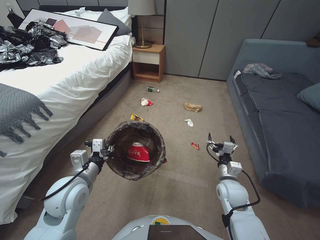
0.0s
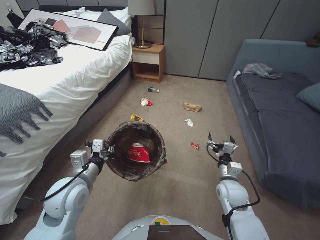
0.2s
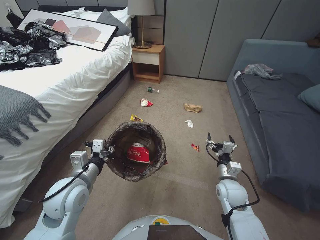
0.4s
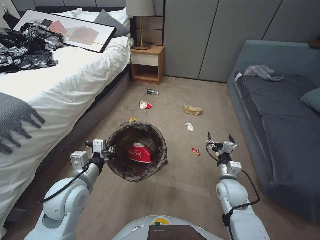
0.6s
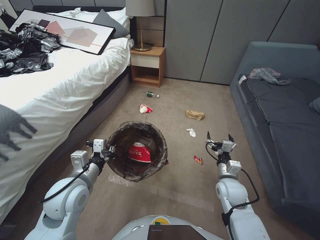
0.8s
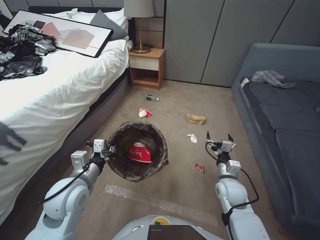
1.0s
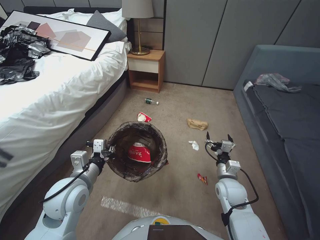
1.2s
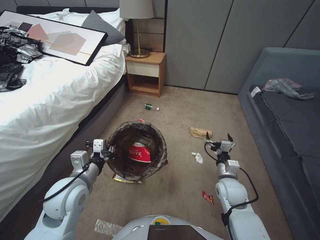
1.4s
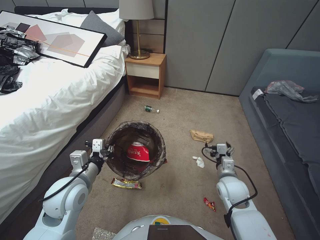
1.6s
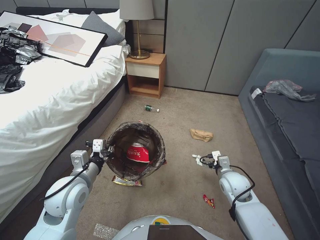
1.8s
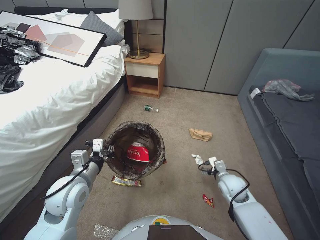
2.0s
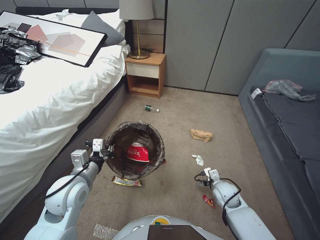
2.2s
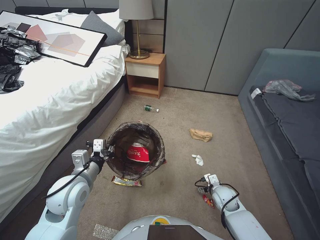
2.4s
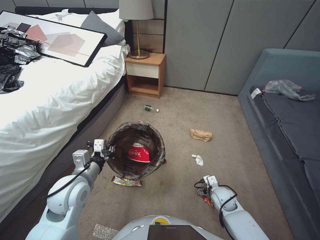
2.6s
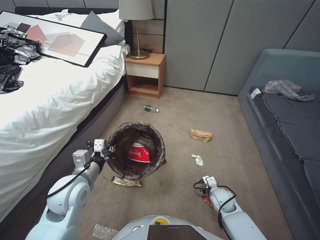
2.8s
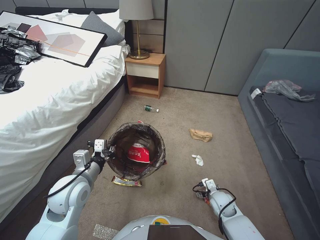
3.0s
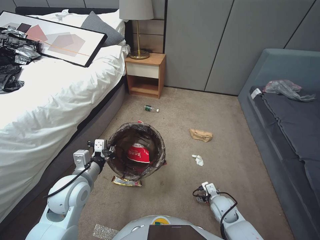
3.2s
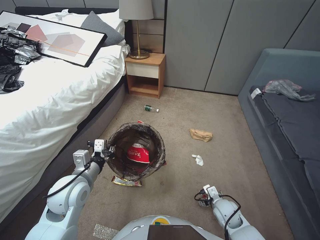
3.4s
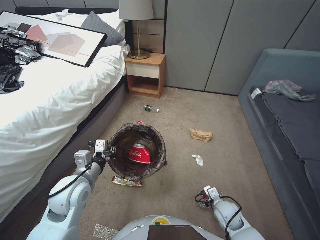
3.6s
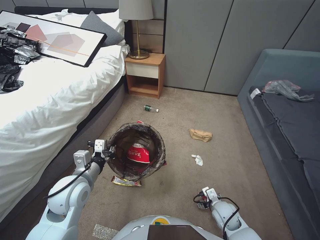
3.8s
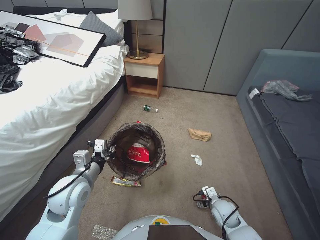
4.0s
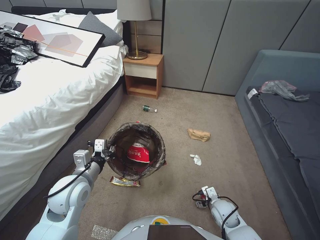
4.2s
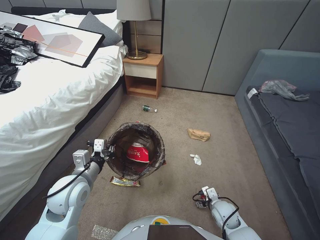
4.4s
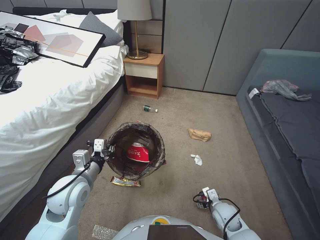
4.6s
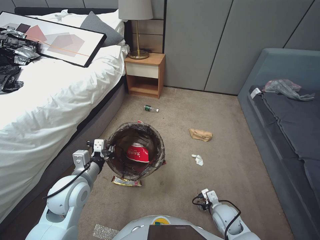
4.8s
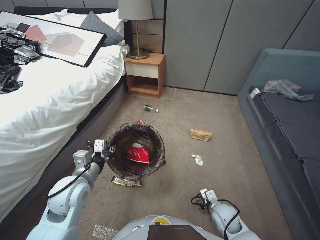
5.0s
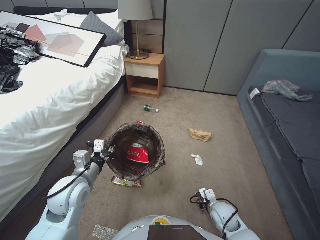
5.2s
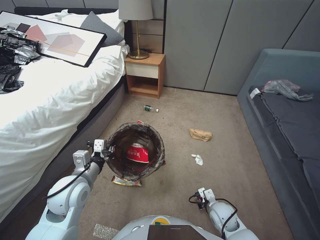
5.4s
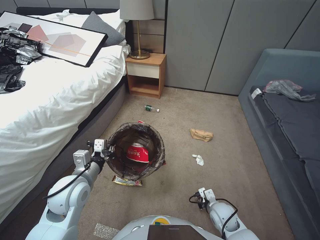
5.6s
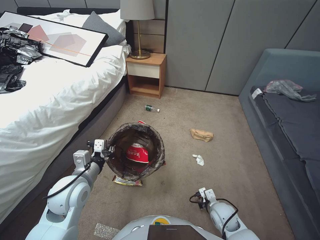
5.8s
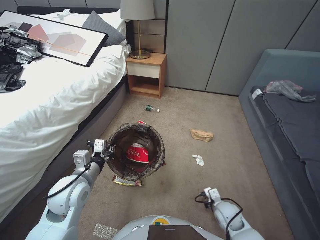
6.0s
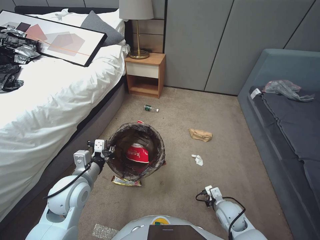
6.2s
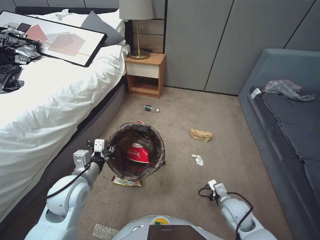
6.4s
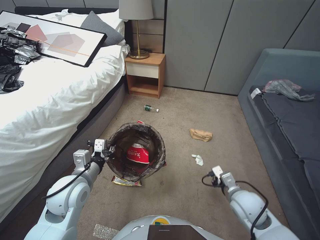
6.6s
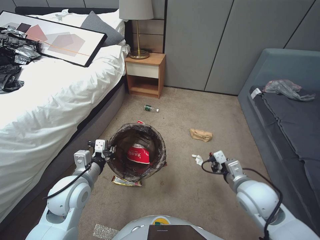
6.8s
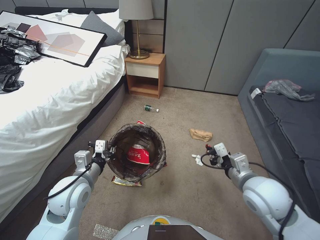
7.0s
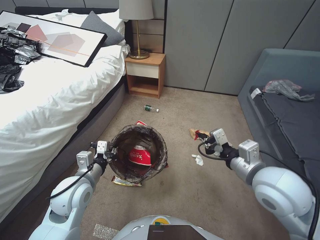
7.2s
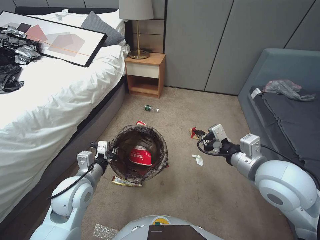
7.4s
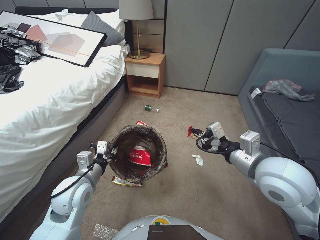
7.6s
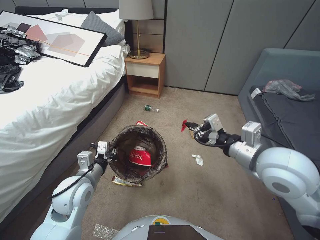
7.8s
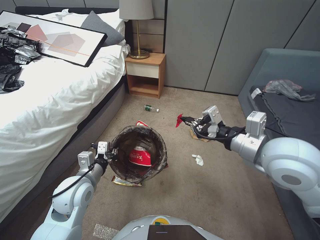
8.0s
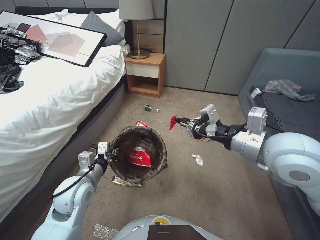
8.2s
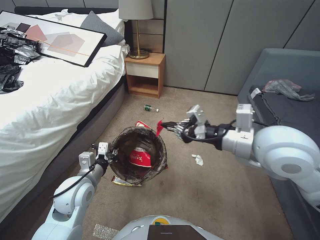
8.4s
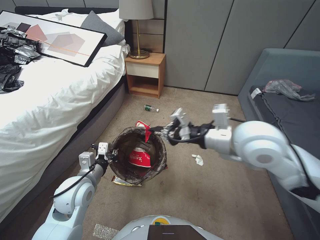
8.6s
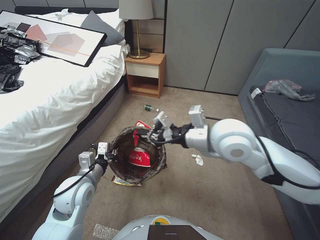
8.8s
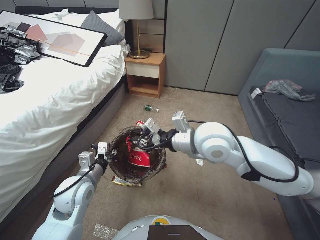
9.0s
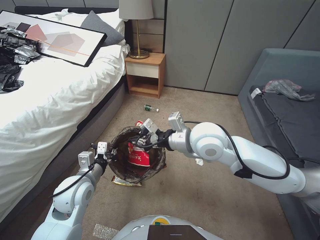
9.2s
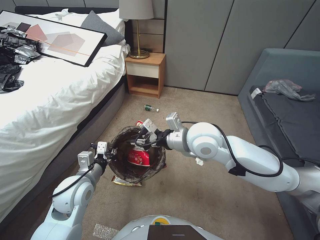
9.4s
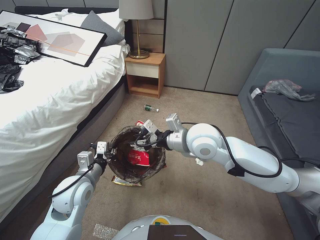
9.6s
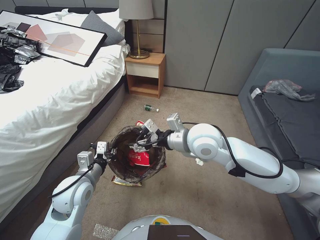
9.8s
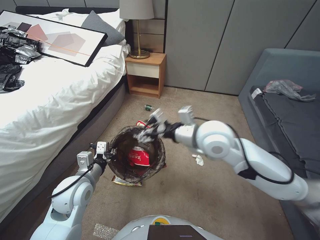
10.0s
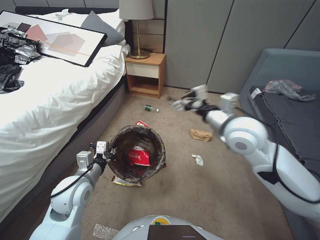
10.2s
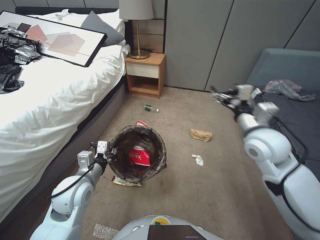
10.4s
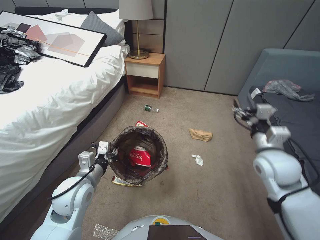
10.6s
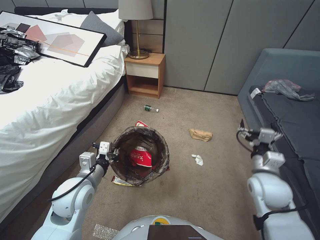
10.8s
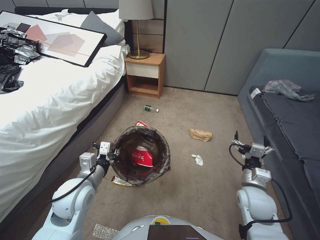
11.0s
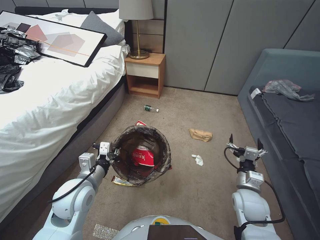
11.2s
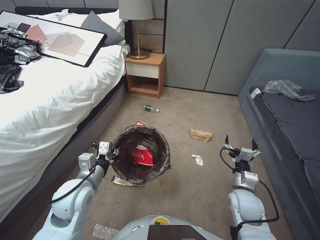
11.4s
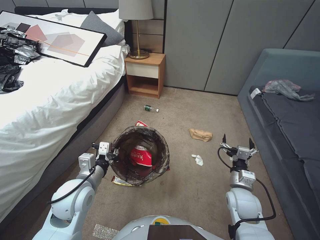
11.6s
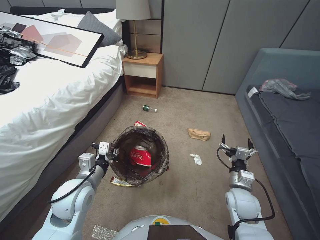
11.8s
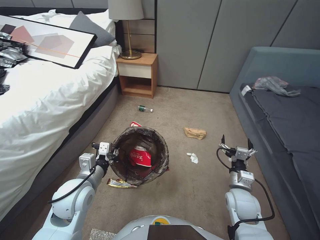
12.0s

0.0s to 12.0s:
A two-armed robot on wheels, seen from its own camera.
Task of the whole recording: Pick up the trash bin, then pick up the garbage from the floor and place it into the trash bin.
1.6s to 3.0s: The right gripper is displaced downward by about 15 cm.
3.0s to 4.4s: The grippers make only small movements.
4.4s to 6.0s: The right gripper closes its fingers.
6.0s to 7.6s: The right gripper goes approximately 30 cm upward.
7.6s to 9.0s: The right gripper goes roughly 20 cm to the left, upward and forward.
9.0s to 10.4s: The right gripper shifts approximately 10 cm to the right, and opens its fingers.
10.4s to 12.0s: The right gripper travels downward and backward by some 25 cm.

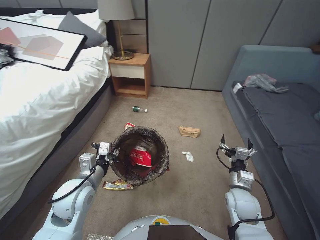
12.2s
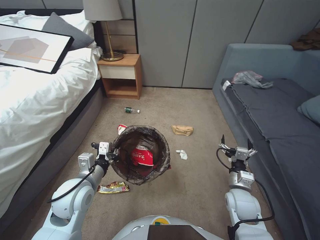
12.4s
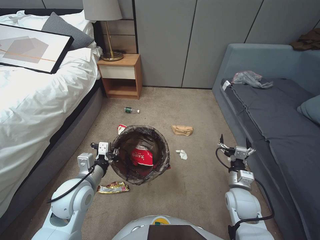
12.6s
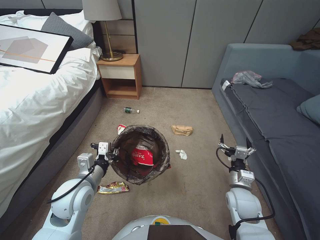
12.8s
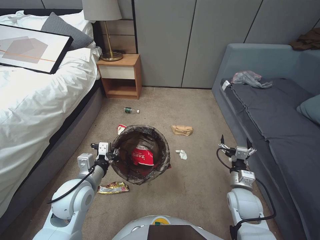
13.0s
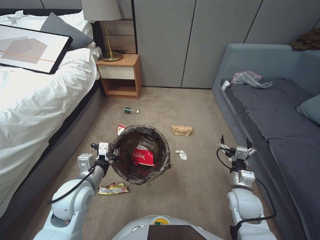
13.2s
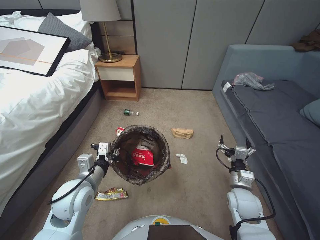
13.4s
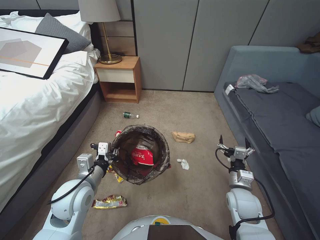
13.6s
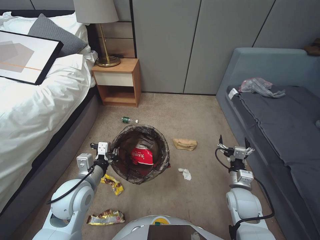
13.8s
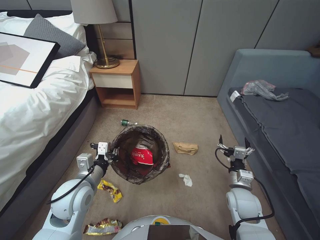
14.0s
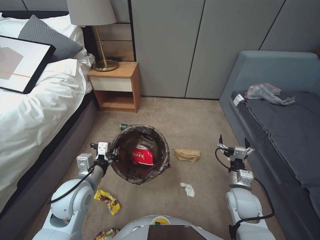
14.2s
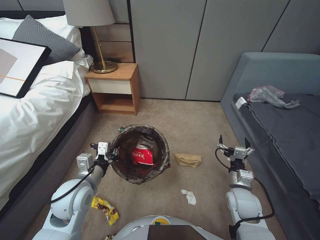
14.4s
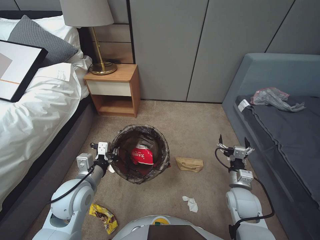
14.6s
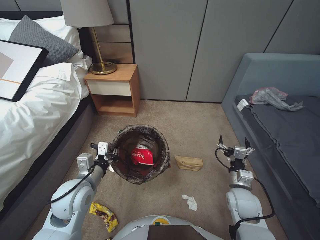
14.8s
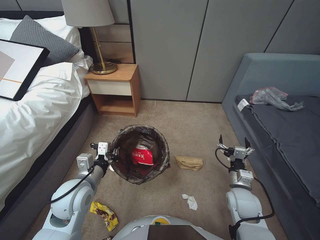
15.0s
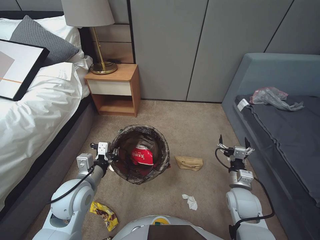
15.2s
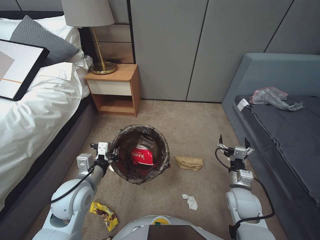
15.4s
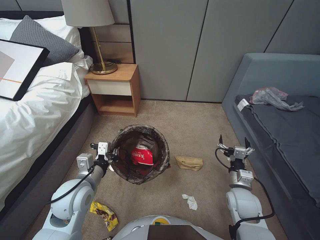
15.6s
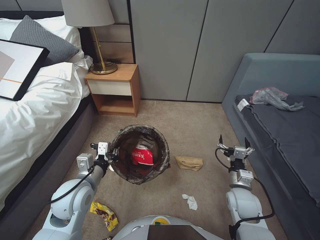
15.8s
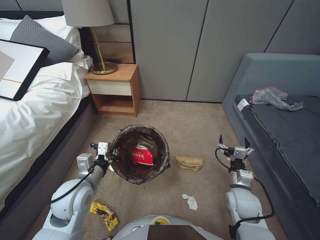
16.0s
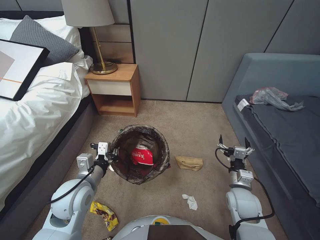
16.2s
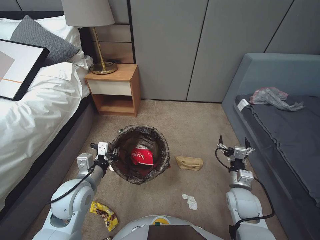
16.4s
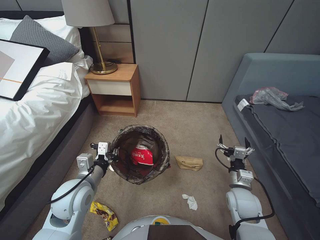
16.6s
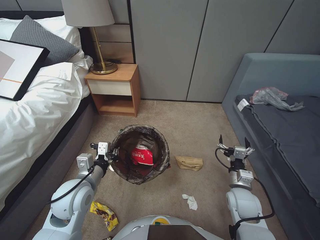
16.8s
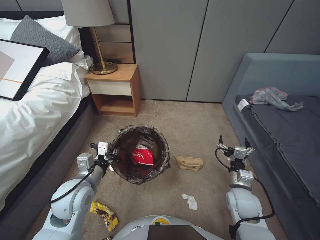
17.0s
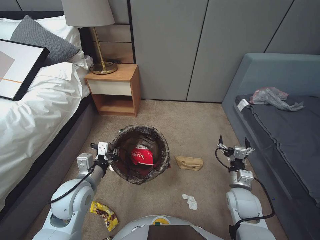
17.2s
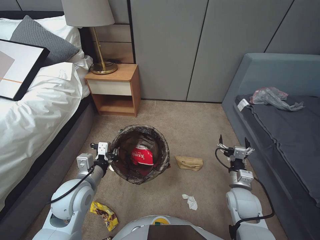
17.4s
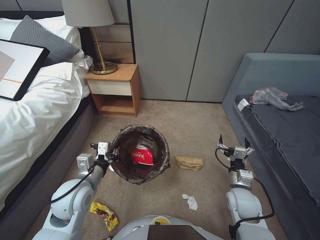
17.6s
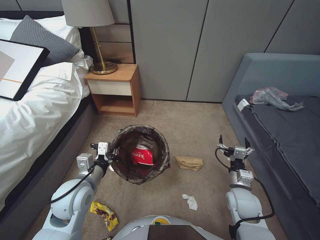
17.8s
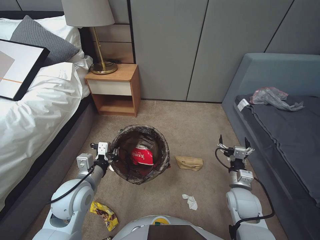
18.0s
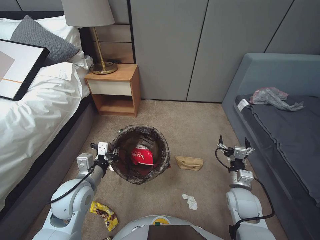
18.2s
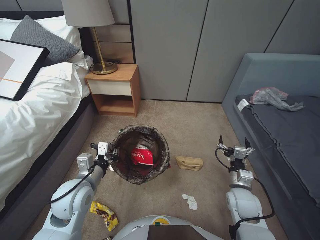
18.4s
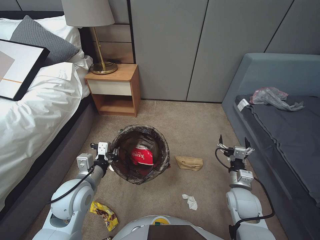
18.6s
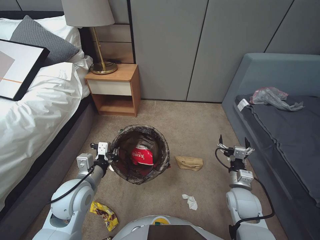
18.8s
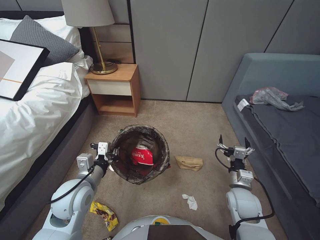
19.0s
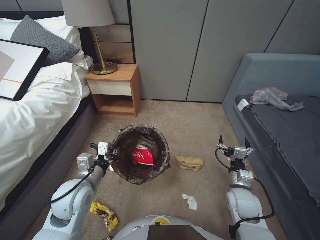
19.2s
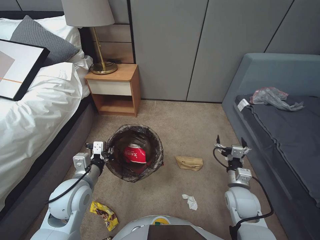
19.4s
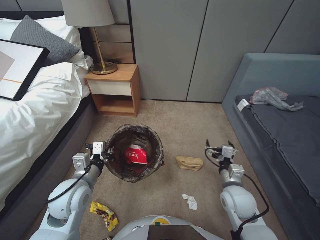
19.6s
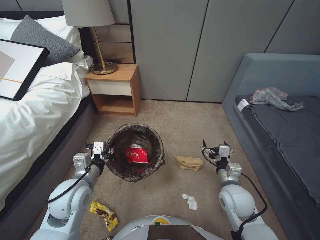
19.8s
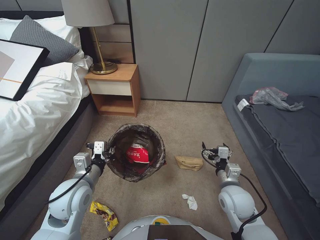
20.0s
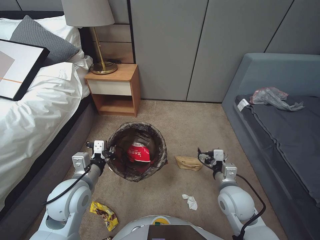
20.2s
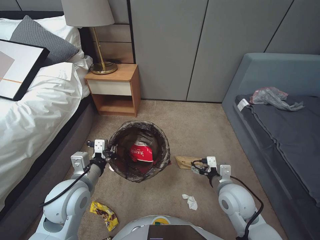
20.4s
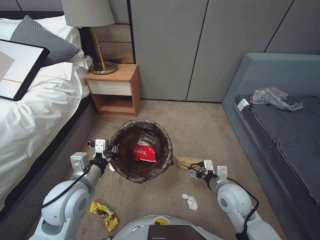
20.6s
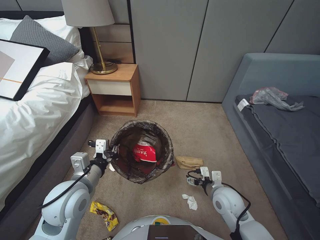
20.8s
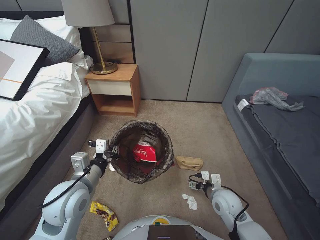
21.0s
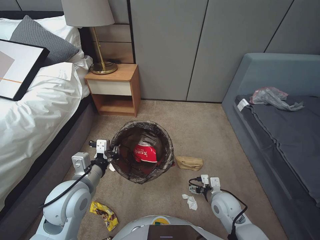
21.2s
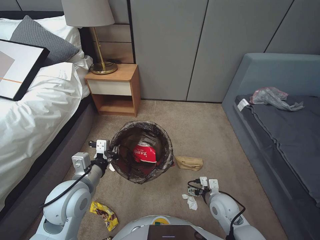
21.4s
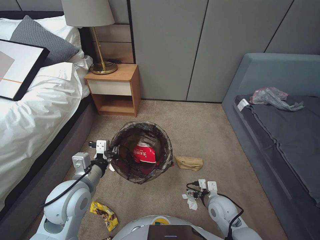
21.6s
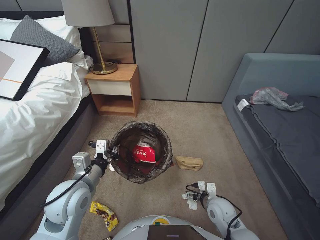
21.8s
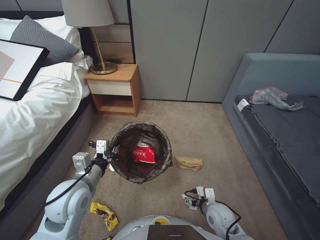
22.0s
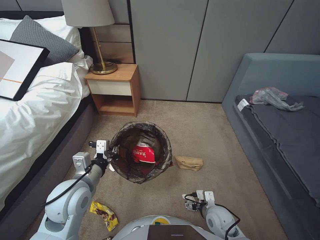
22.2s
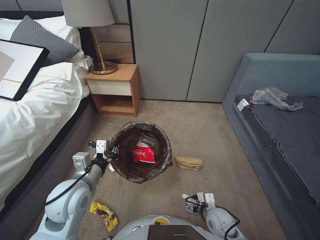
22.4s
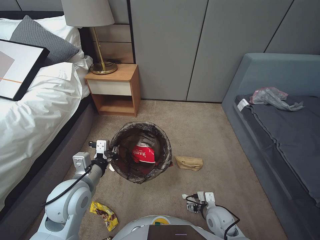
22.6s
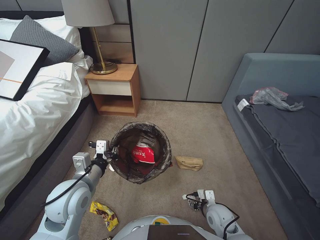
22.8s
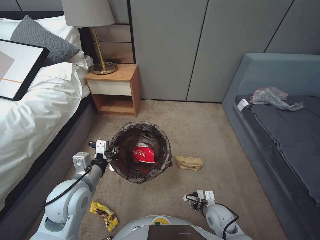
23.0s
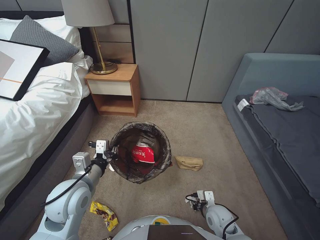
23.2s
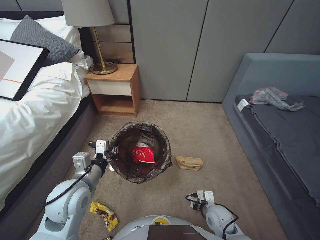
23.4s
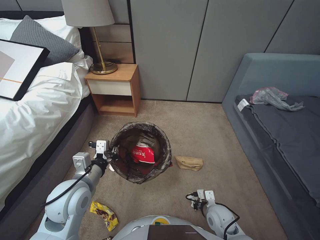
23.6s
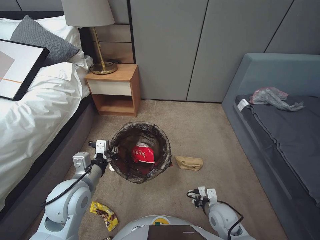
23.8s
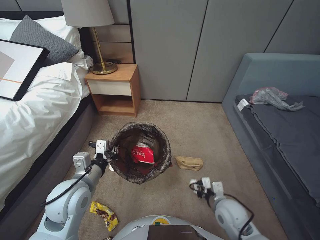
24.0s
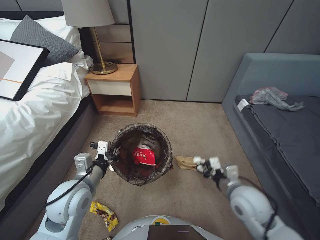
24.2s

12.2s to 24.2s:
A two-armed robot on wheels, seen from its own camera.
Task of the whole recording: Pick up the trash bin, then pick up the garbage from the floor and place it into the trash bin.
13.8s to 18.2s: Neither gripper changes place.
18.2s to 19.8s: The grippers make only small movements.
19.8s to 21.2s: The right gripper moves downward, some 5 cm.
21.2s to 22.6s: The right gripper goes approximately 5 cm downward.
22.6s to 24.2s: The right gripper moves upward, about 10 cm, and closes up.
